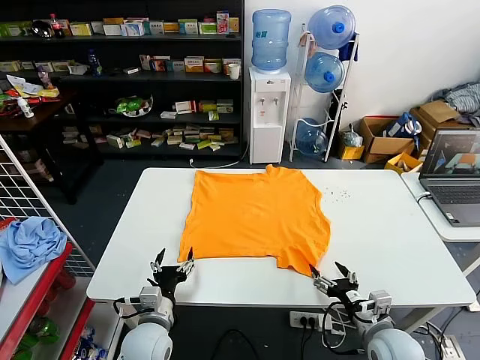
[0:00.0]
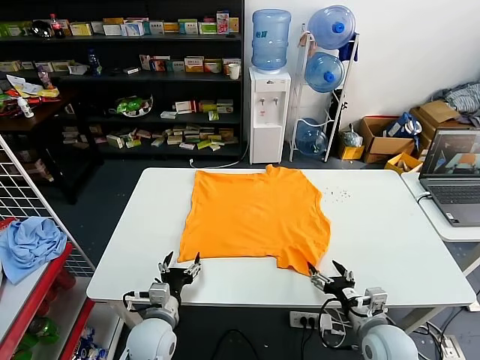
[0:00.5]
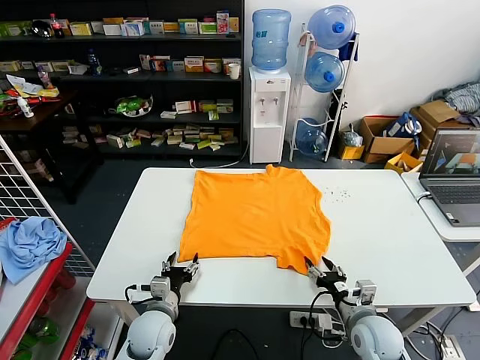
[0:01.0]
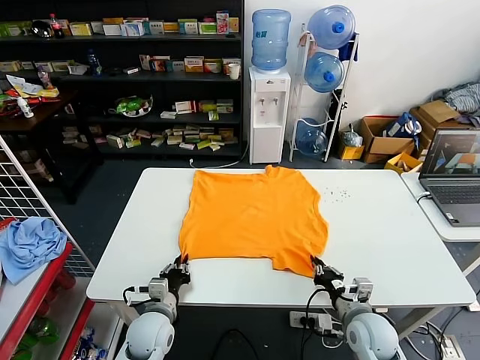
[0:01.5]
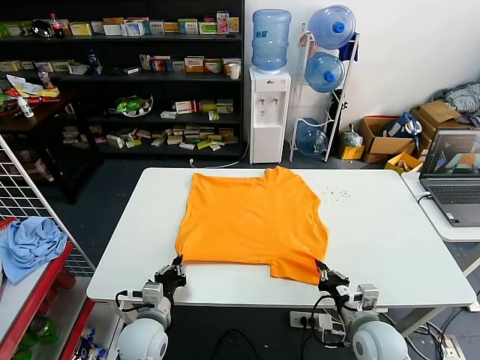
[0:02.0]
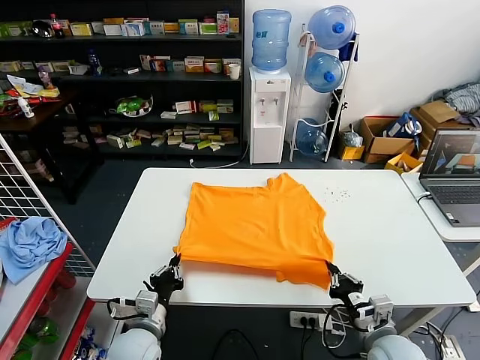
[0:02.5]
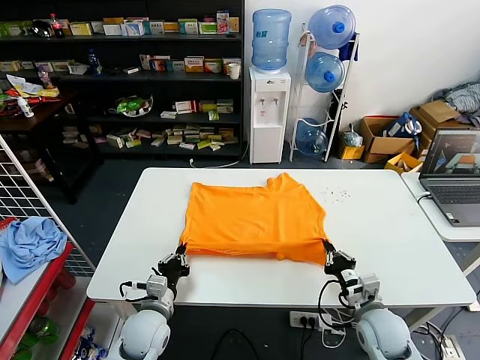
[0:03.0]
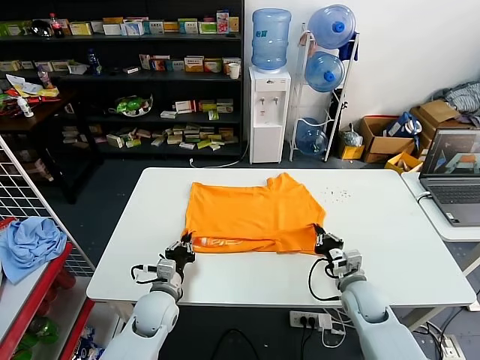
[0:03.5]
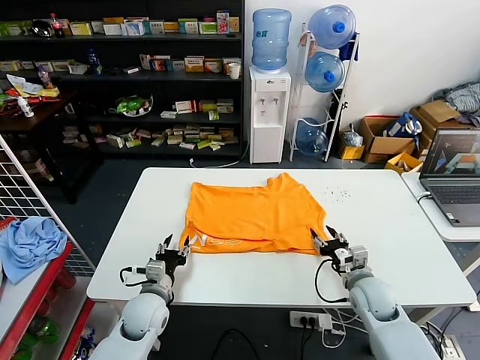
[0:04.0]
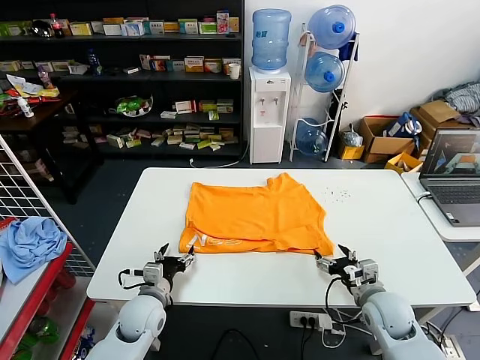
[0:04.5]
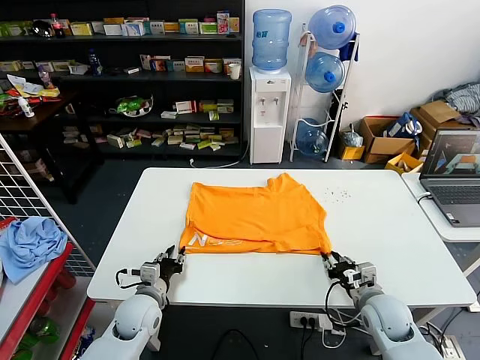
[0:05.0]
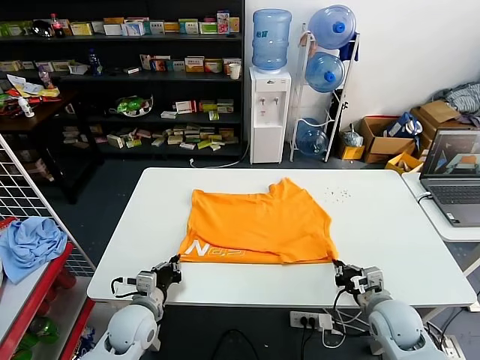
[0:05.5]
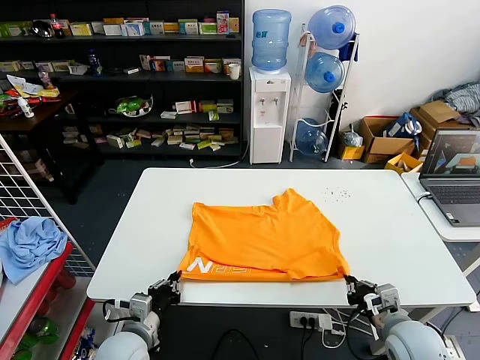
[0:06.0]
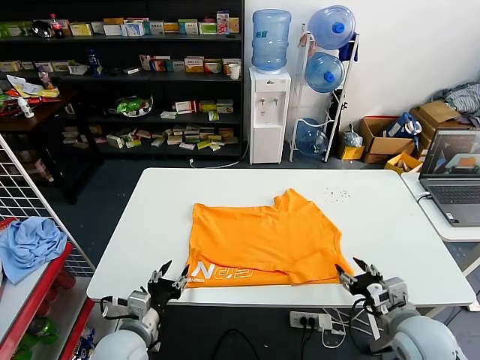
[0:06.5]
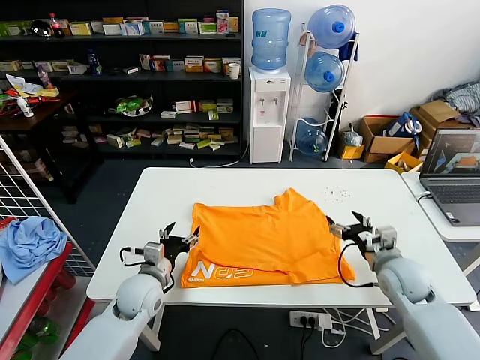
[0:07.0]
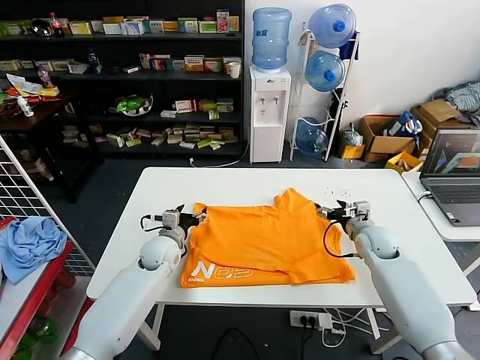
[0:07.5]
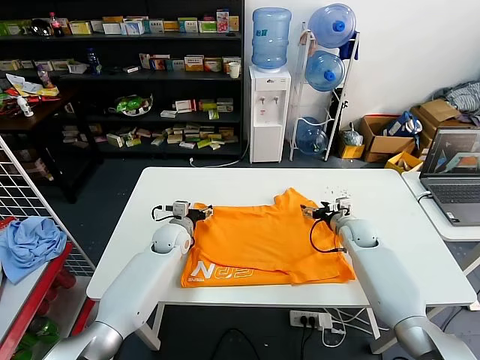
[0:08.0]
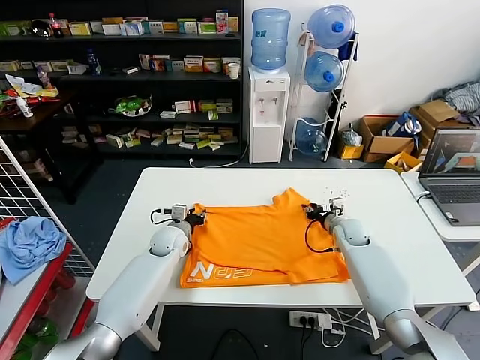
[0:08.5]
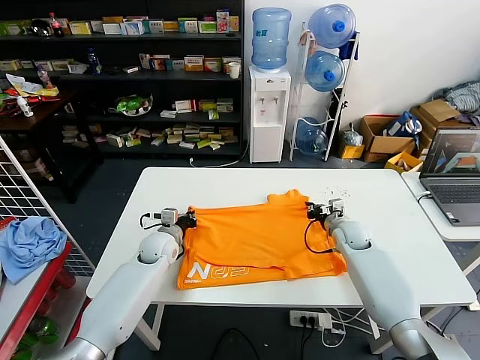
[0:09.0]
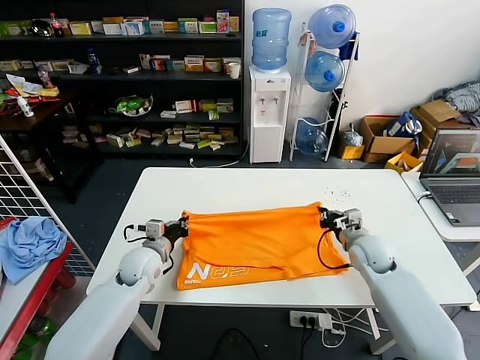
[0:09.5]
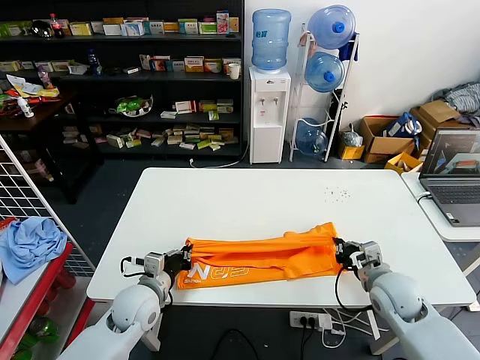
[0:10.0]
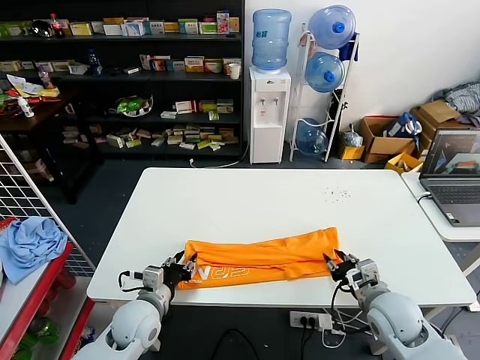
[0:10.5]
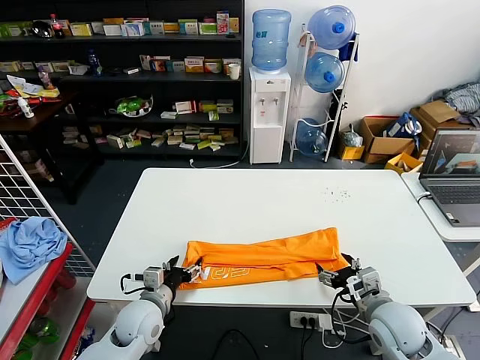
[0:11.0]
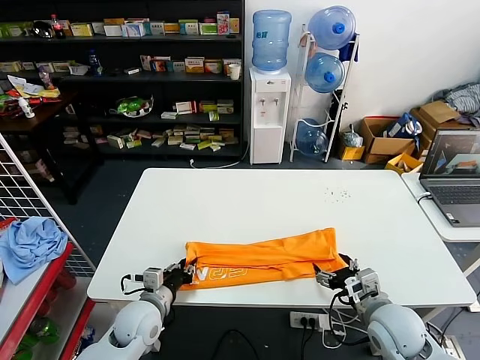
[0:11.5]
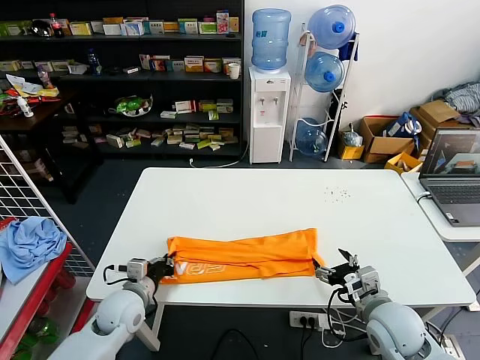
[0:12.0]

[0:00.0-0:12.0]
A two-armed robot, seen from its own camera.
Task of the whole recording: fold and organize the clothes.
Step, 0:00.0 to 0:01.5: use both grippers simultaneously to clamp the lower edge of the clothing fabric.
Step, 0:02.0 to 0:03.5: use both grippers to drag the lower edge of the fabric forward and fold it over the upper edge.
Step, 0:04.0 to 0:06.0: Drag the clothes downward with both gripper.
Step, 0:07.0 to 0:09.0: use both grippers simultaneously to clamp the upper edge of the clothing fabric.
Step, 0:09.5 to 0:10.5: use both grippers to drag the upper edge of the fabric backward and fold it over the lower edge.
Step, 0:11.0 to 0:12.0: use the left gripper to clamp the left edge of the fabric.
0:02.0 to 0:04.0: The right gripper is displaced forward by roughly 10 cm, and opens. Meanwhile the left gripper is displaced forward by about 5 cm, and opens.
0:04.0 to 0:06.0: Both grippers move backward, roughly 10 cm. The left gripper closes. The right gripper closes.
0:06.0 to 0:08.0: The grippers both shift forward by approximately 30 cm. The right gripper opens its fingers. Meanwhile the left gripper opens up.
0:08.0 to 0:10.0: The two grippers go some 20 cm backward. The left gripper closes up, while the right gripper closes up.
0:10.0 to 0:12.0: The left gripper opens, then closes again, while the right gripper heads backward, covering approximately 5 cm, and opens its fingers.

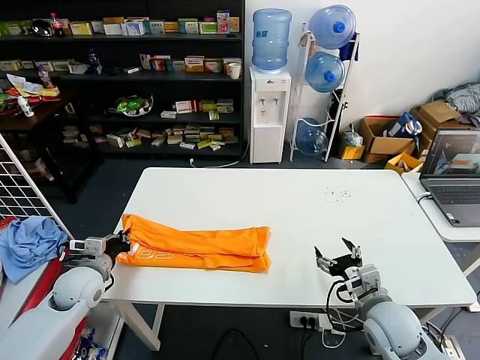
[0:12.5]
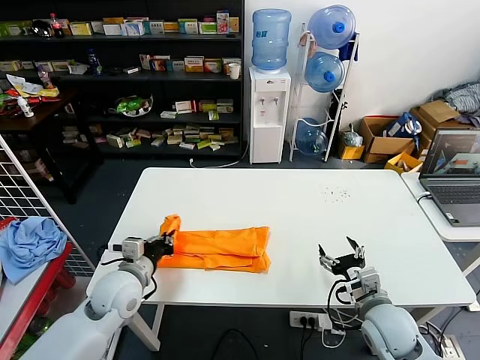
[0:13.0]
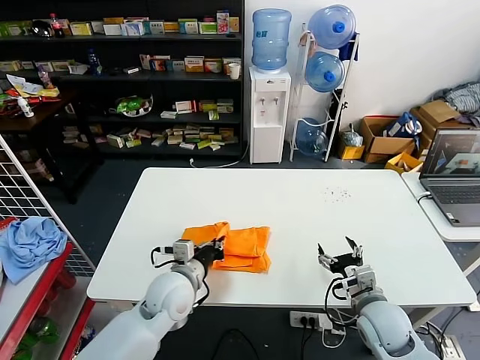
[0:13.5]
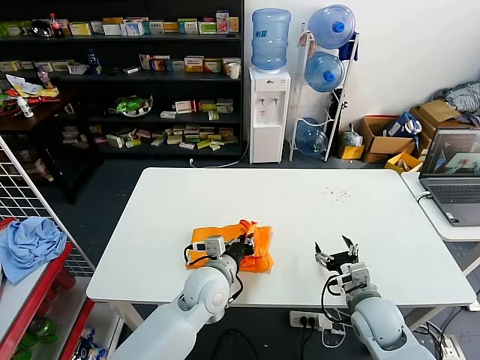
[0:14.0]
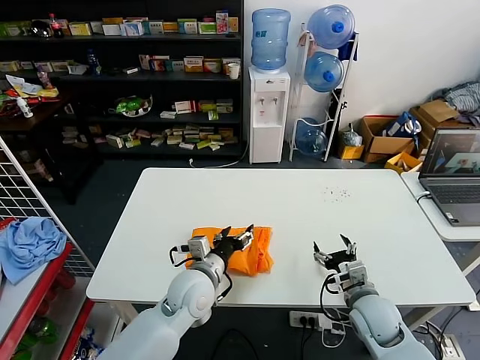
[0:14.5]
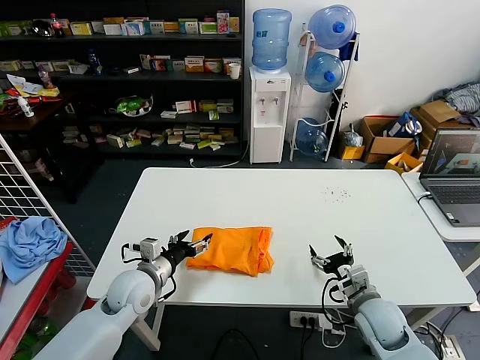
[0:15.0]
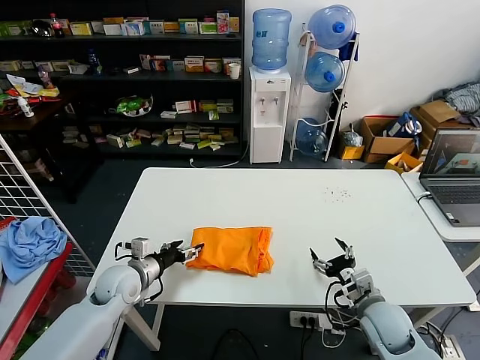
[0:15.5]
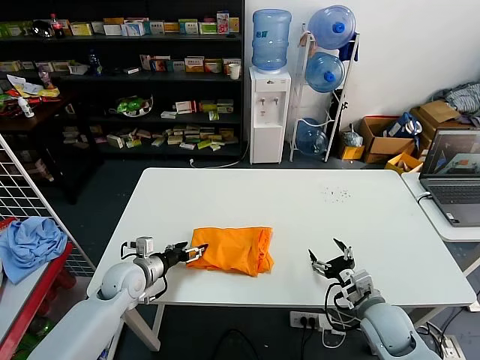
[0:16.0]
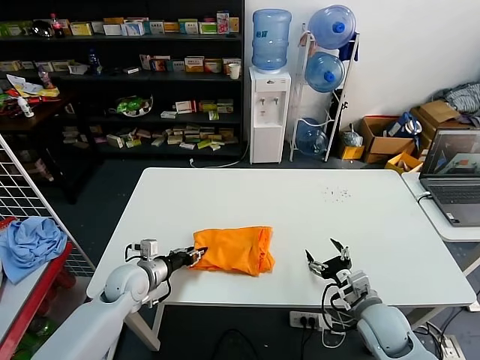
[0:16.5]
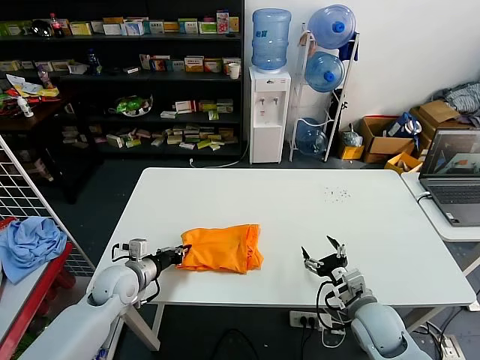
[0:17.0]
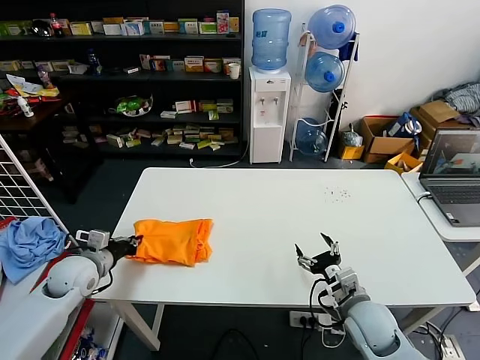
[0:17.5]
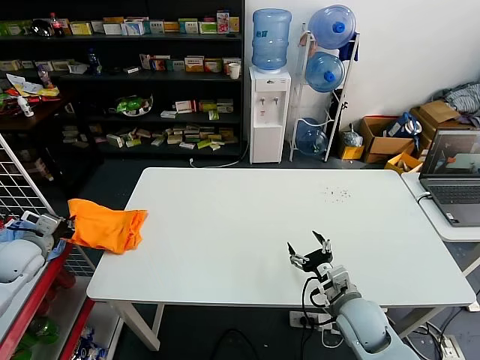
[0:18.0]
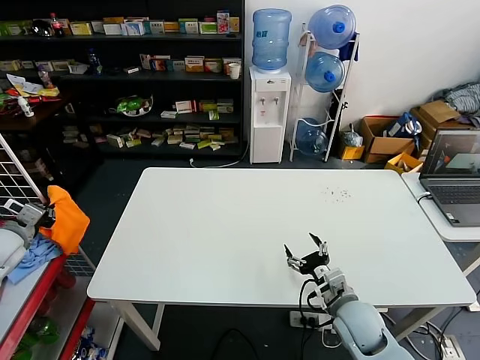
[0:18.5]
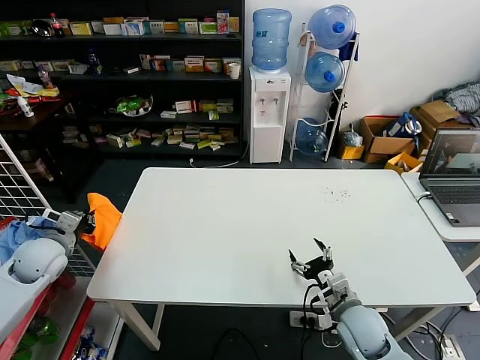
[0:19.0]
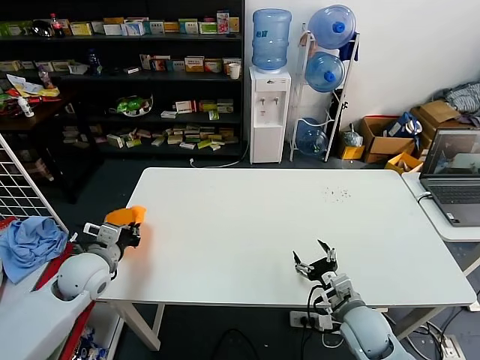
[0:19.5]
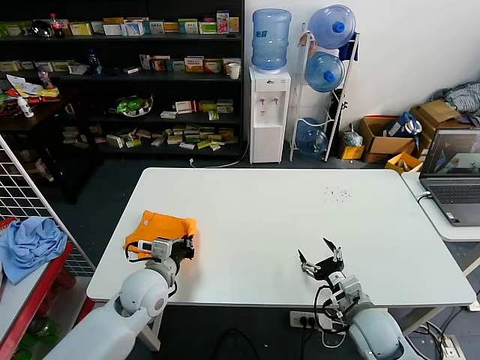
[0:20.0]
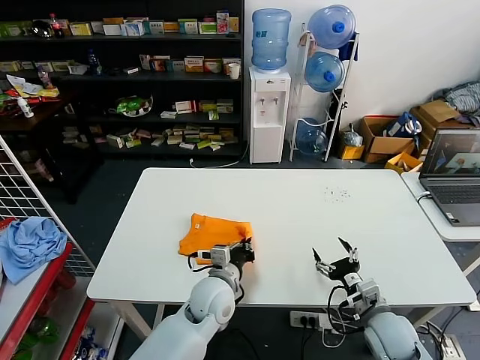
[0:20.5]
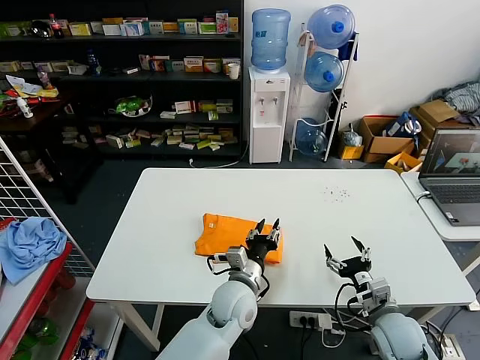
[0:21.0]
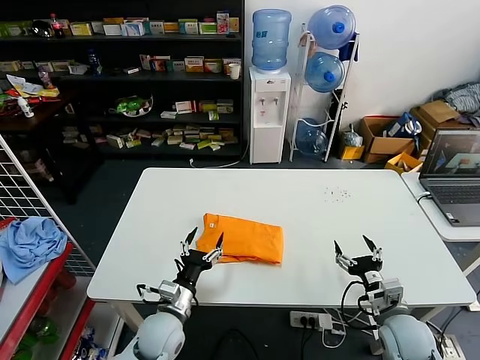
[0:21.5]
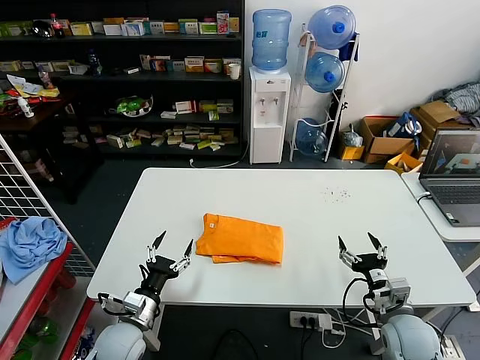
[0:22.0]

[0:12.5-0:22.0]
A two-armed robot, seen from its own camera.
Task of the whole recording: fold and organize the clothes.
Step, 0:12.5 to 0:14.0: use the left gripper to drag the left edge of the fabric to the left and folds it over the right edge.
Step, 0:14.5 to 0:21.0: Flip the folded clothes over with left gripper.
0:12.5 to 0:14.5: The right gripper ends up approximately 5 cm from where it was, while the left gripper heads to the right, covering about 25 cm, and opens up.
0:14.5 to 0:16.5: The left gripper travels to the left by some 20 cm.
0:16.5 to 0:18.0: The left gripper travels to the left and upward by approximately 25 cm, and closes up.
0:18.0 to 0:20.0: The left gripper heads to the right, covering some 25 cm.
0:20.0 to 0:22.0: The left gripper is displaced downward and backward by some 10 cm, moves approximately 20 cm to the right and comes back, and opens its fingers. The right gripper moves to the right, some 5 cm.

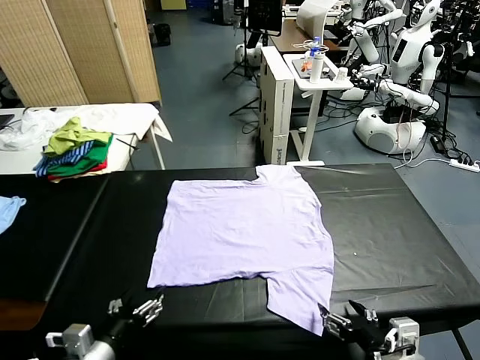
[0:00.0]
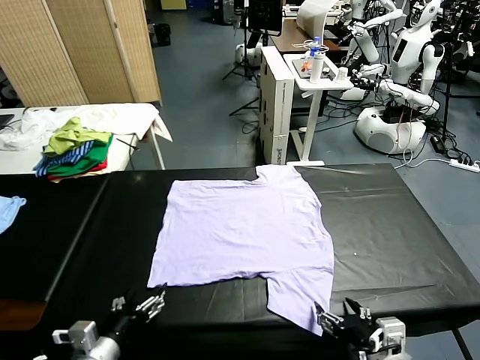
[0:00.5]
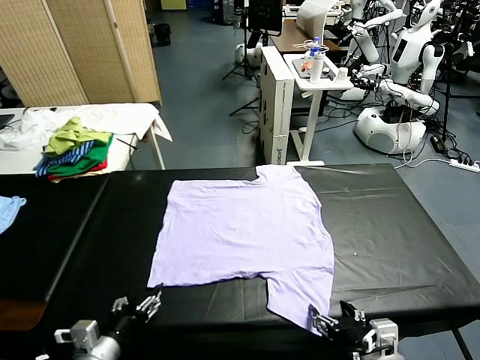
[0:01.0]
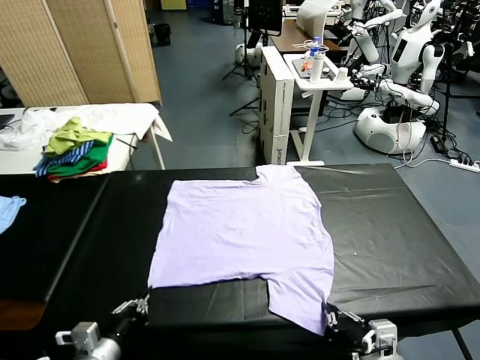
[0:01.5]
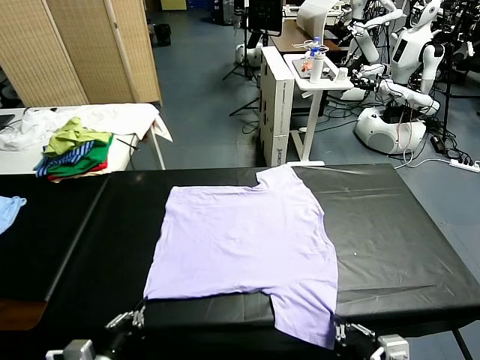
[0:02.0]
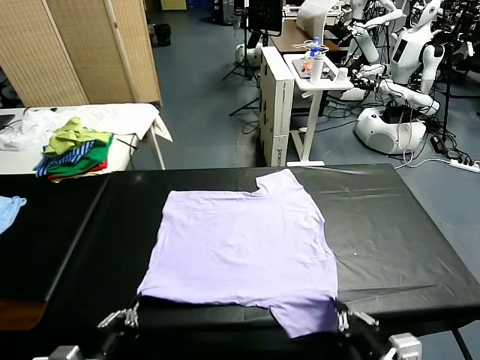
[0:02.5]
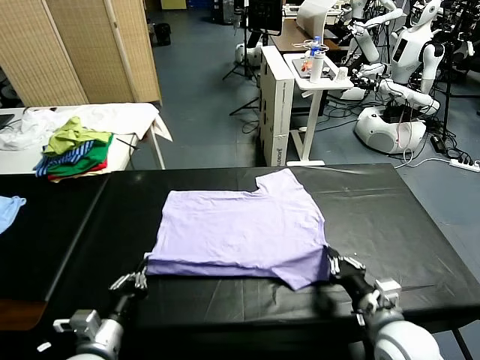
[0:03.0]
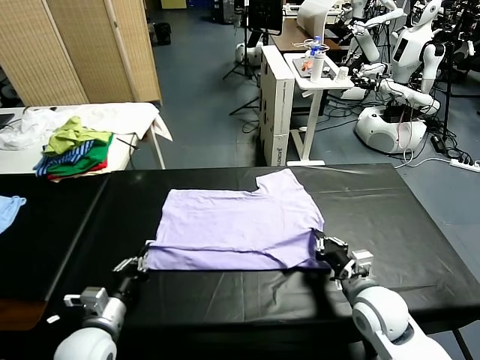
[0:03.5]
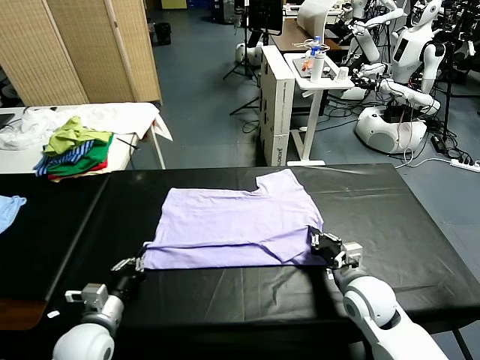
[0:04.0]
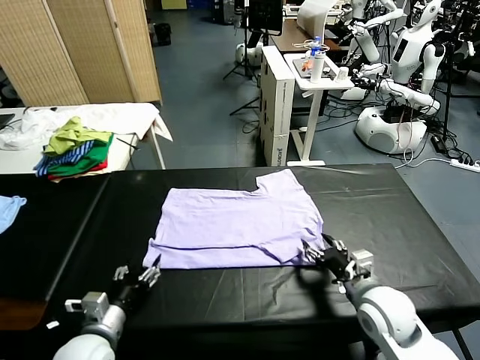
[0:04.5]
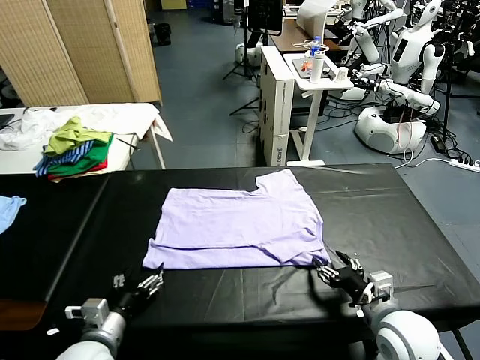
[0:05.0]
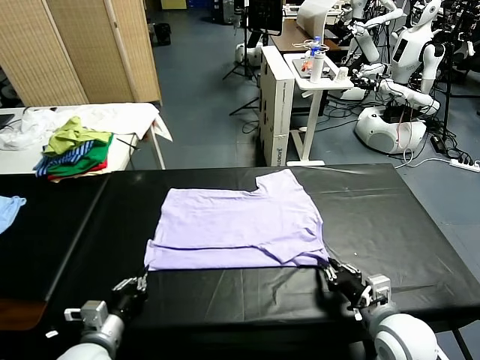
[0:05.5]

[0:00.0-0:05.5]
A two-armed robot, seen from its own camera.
Task of the whole recording: fold and organize the clothes.
Step, 0:00.0 to 0:01.5: use both grippers simultaneously to clamp the lower edge of the clothing fabric.
Step, 0:02.0 to 0:04.0: use both grippers to drag the lower edge of the fabric forward and fold it over the upper edge.
0:02.0 to 0:03.5: The right gripper moves forward, approximately 20 cm, while the left gripper goes approximately 10 cm forward.
0:03.5 to 0:05.5: The right gripper heads backward, covering about 10 cm, and opens, then closes again. The left gripper opens, then closes once more.
